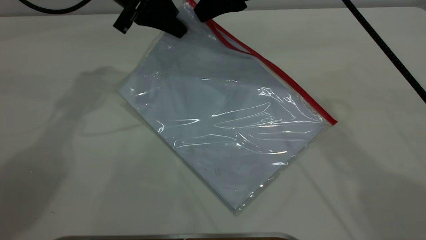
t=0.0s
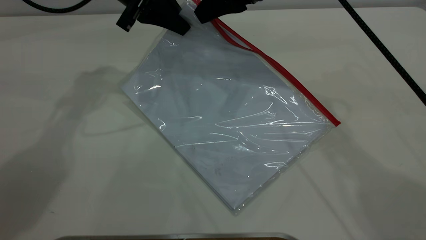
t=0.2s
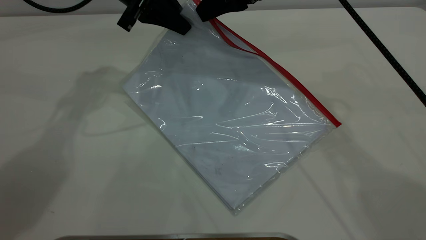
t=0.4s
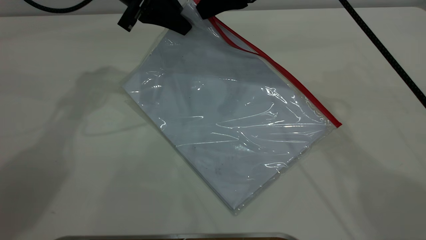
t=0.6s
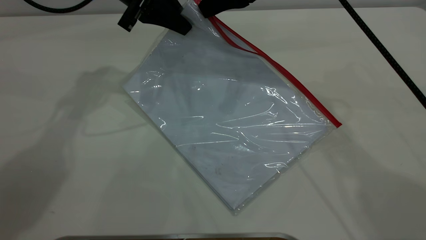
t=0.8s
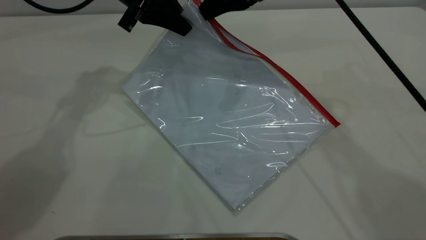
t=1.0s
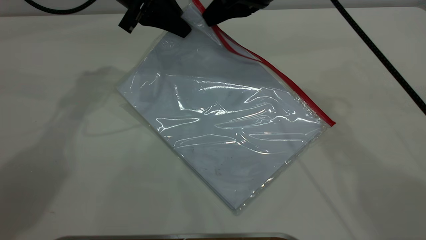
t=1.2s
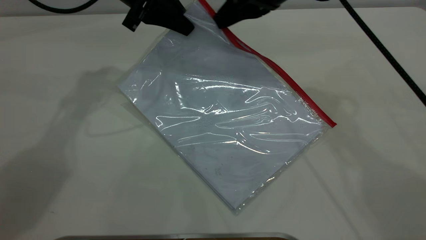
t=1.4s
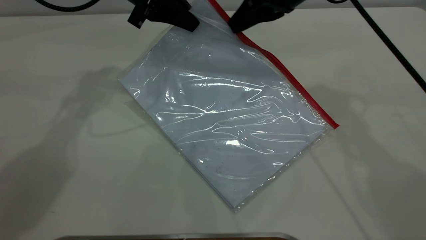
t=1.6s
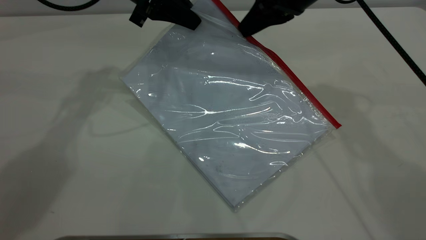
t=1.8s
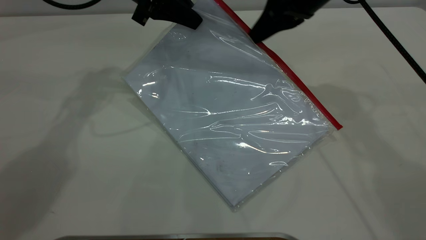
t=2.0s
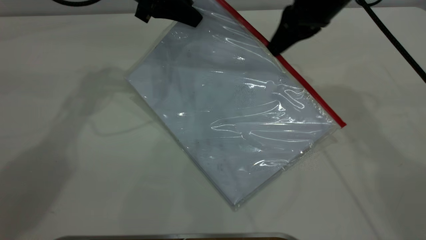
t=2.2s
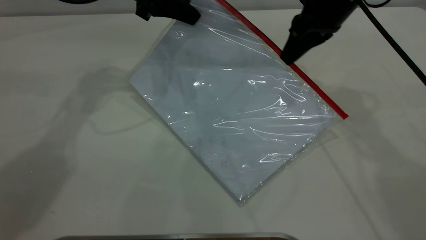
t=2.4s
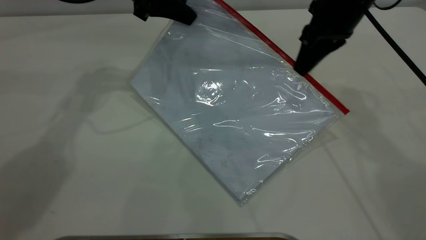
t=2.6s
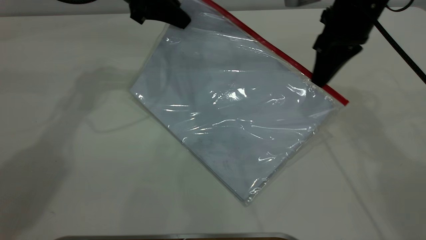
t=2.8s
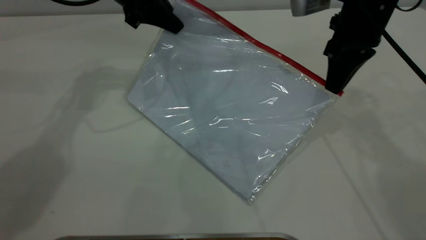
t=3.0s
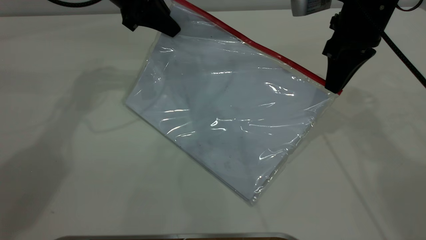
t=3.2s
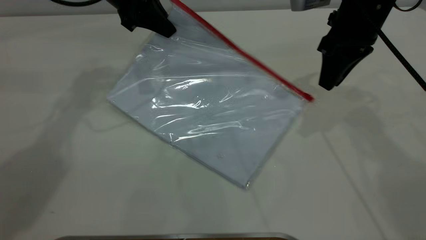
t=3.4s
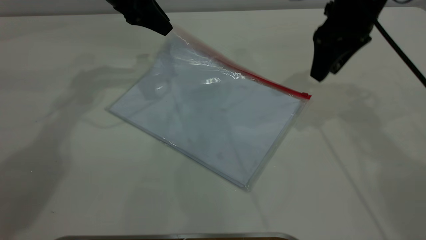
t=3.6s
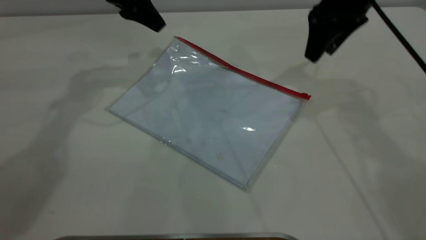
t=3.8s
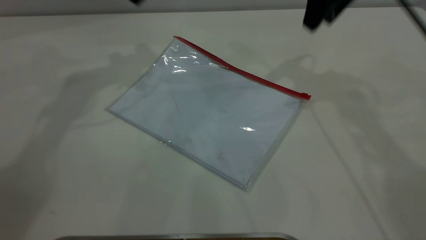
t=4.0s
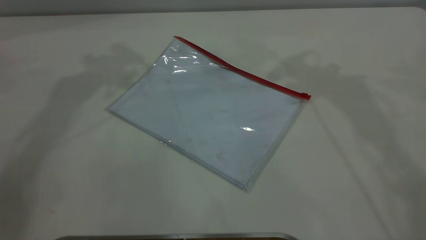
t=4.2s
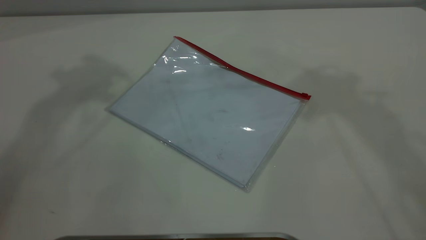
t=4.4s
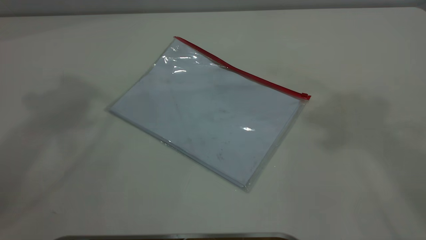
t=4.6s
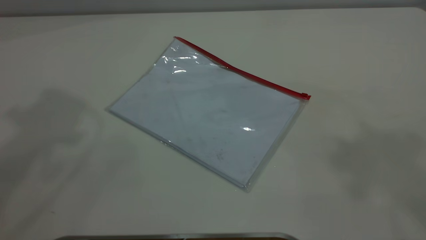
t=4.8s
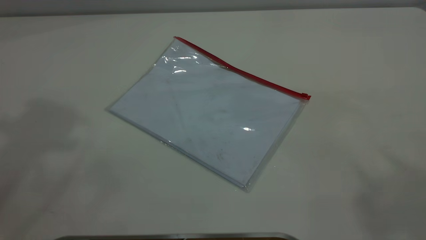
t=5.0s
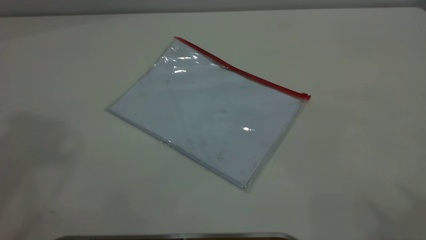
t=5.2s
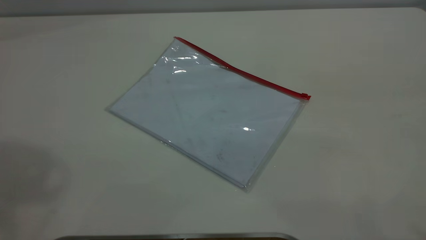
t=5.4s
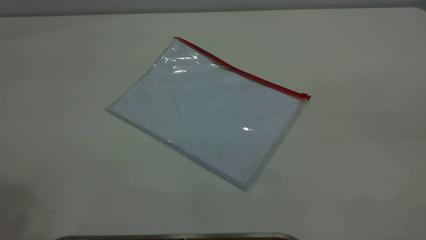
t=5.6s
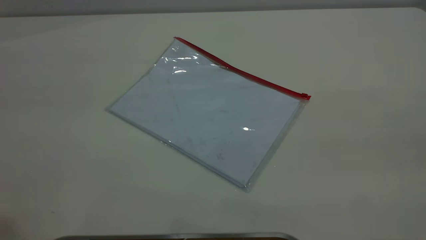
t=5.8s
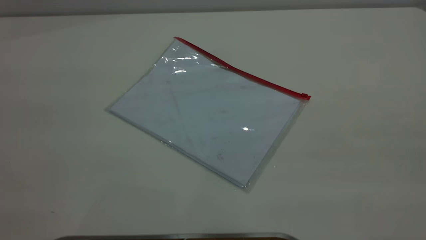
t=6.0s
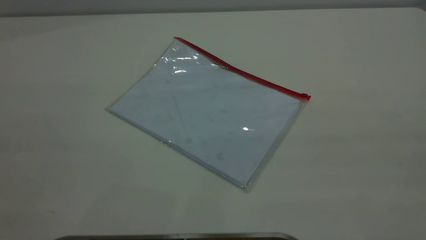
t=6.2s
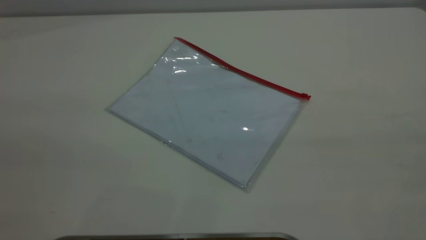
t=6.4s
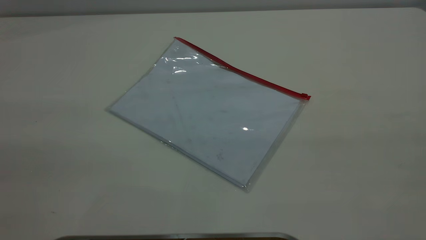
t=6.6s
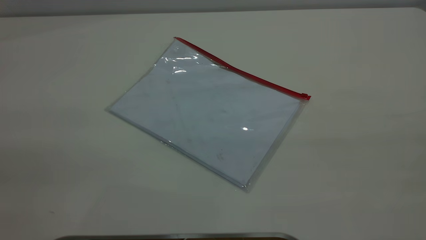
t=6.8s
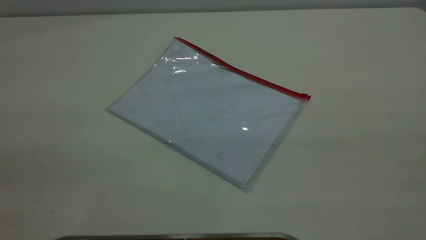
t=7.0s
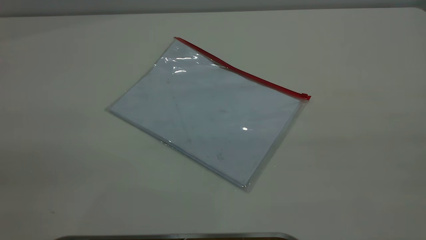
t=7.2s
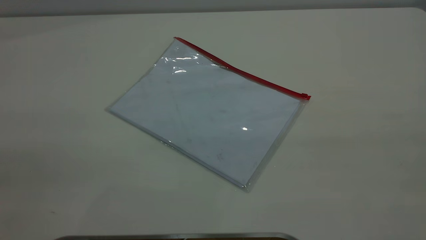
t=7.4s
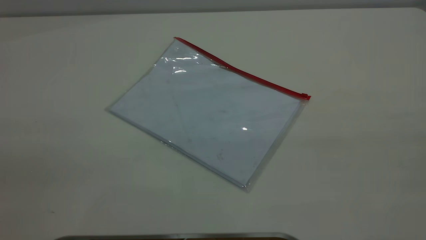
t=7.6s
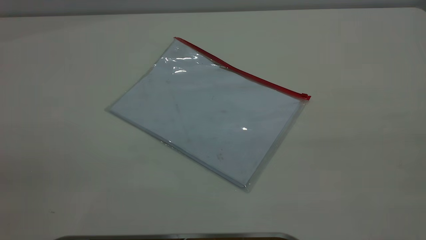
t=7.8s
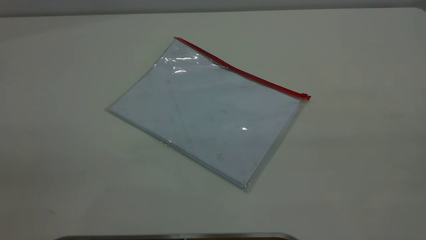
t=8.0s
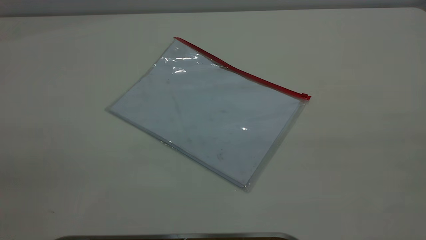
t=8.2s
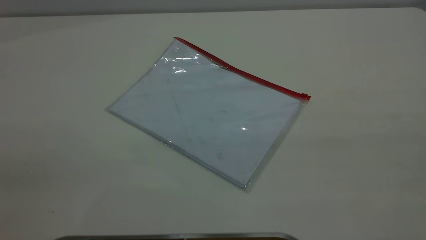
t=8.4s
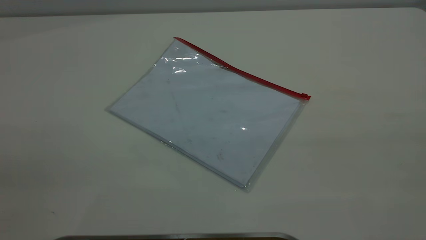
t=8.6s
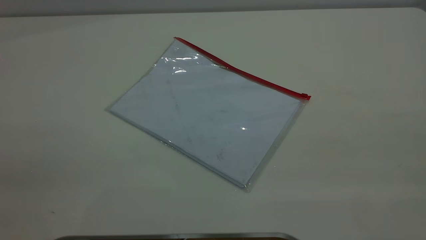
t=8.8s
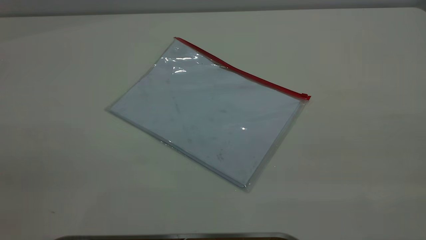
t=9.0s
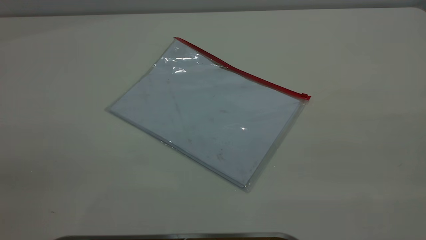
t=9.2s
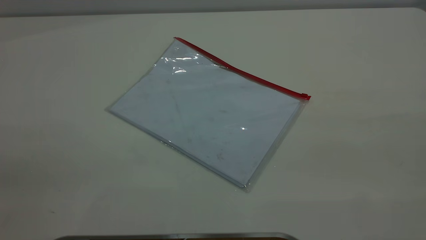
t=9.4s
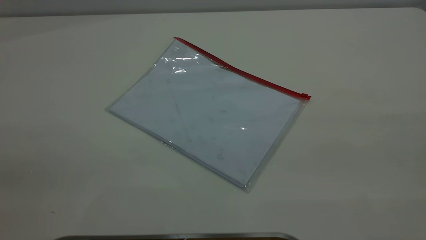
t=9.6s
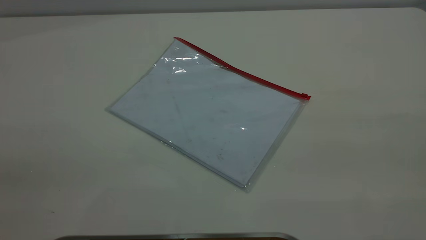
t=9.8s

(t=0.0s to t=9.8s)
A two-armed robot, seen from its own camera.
Step, t=0.0s - t=3.2s: Pulling up the zipper on the transparent plastic bag with the right gripper to close it.
t=0.0s - t=1.4s: The right gripper closes up.
t=1.4s - t=2.8s: The right gripper travels to the right by about 10 cm.
t=2.8s - t=4.2s: Both grippers move upward, some 20 cm. The left gripper opens up, while the right gripper opens.

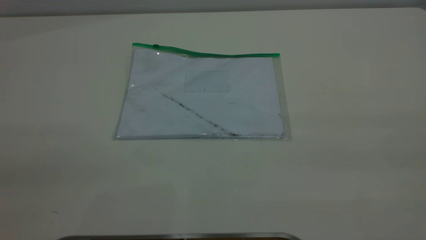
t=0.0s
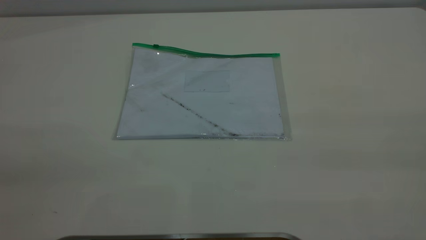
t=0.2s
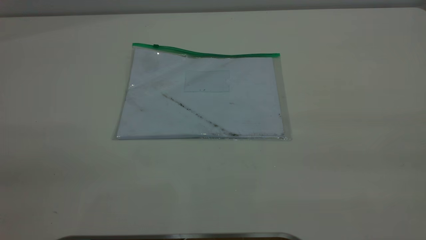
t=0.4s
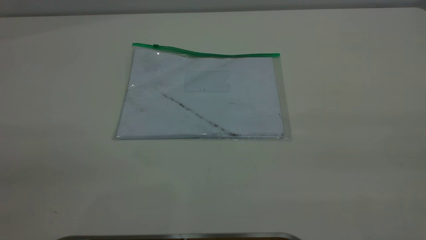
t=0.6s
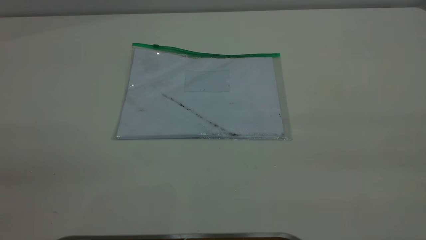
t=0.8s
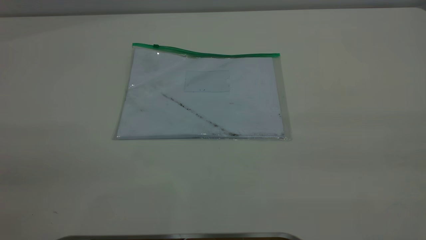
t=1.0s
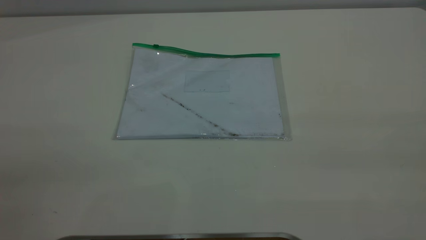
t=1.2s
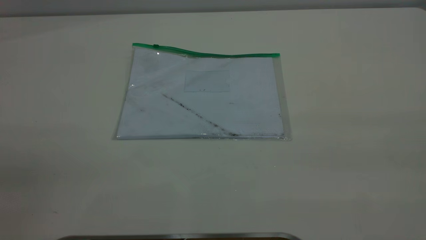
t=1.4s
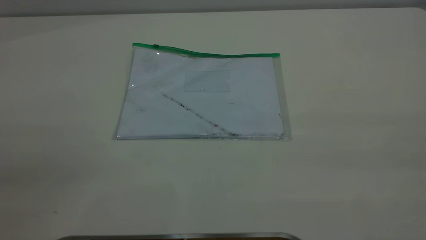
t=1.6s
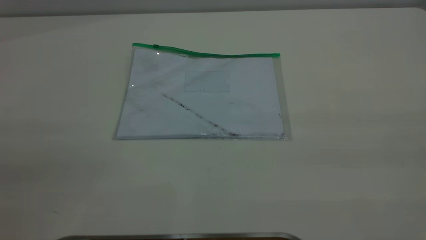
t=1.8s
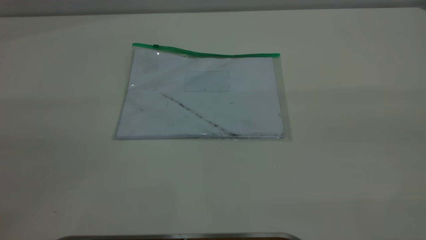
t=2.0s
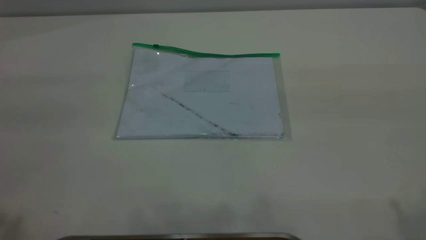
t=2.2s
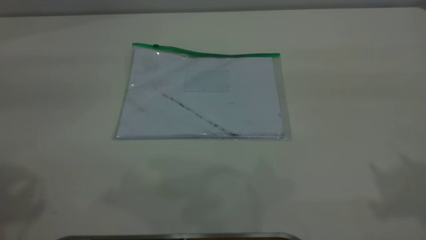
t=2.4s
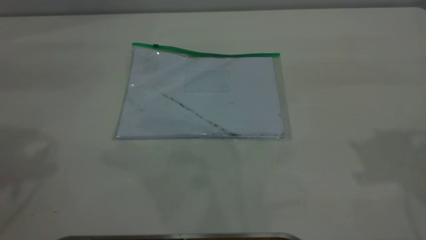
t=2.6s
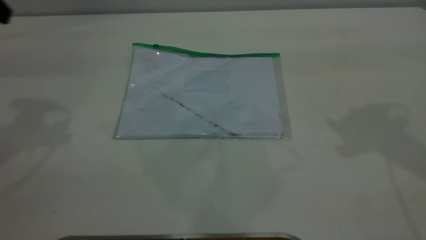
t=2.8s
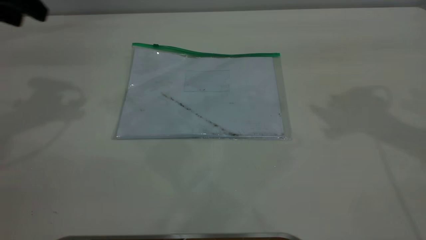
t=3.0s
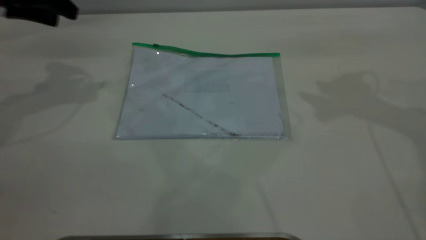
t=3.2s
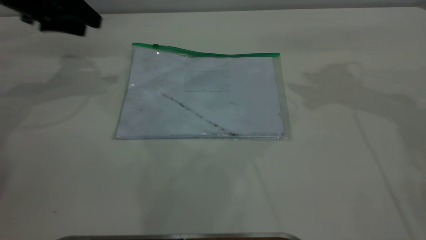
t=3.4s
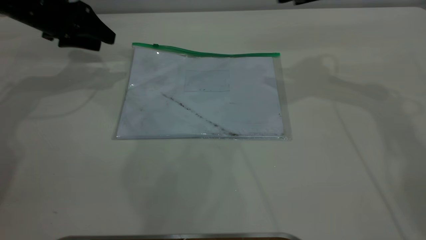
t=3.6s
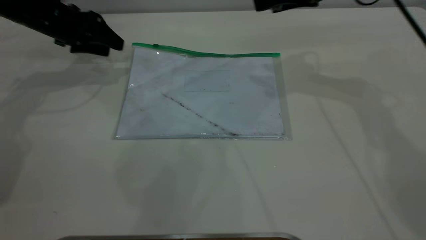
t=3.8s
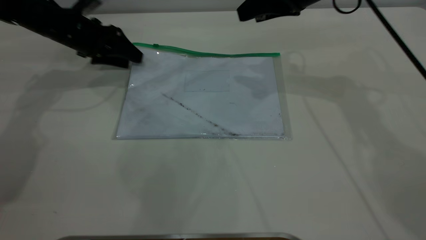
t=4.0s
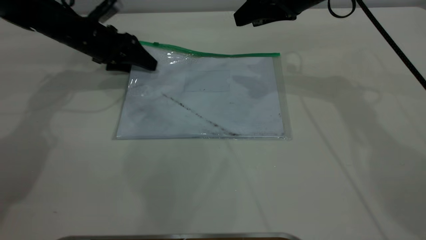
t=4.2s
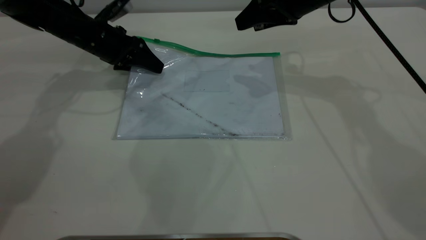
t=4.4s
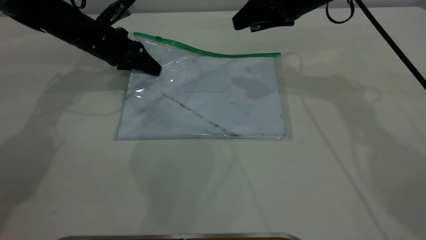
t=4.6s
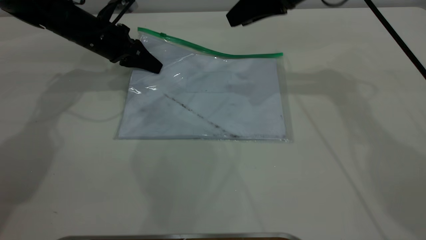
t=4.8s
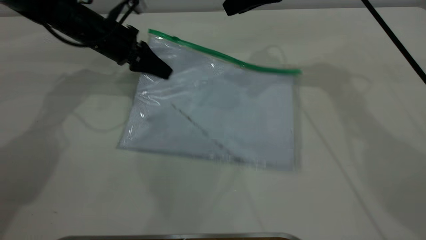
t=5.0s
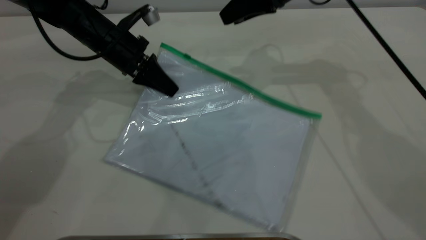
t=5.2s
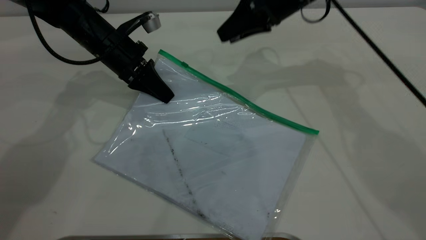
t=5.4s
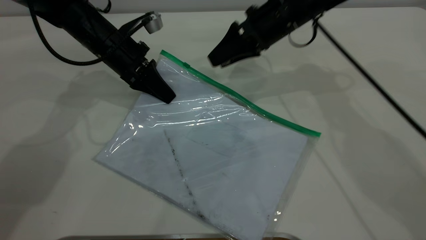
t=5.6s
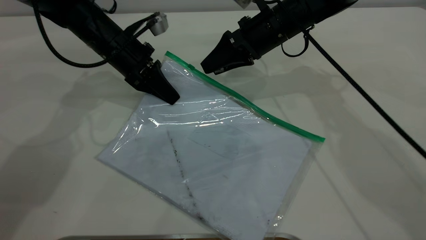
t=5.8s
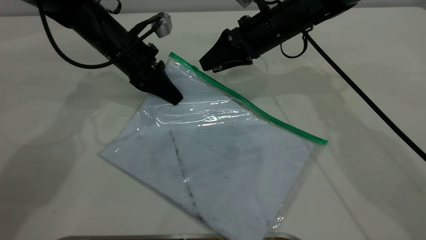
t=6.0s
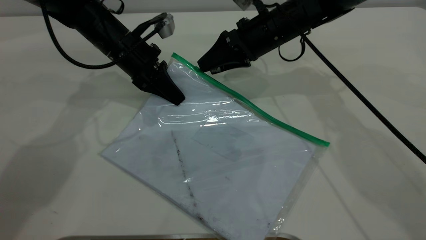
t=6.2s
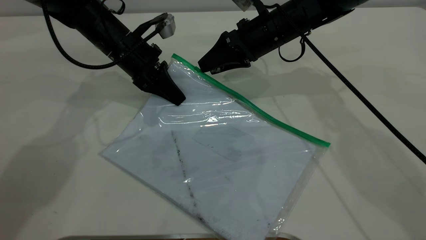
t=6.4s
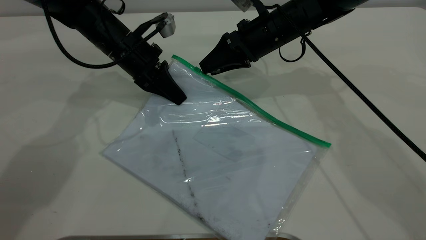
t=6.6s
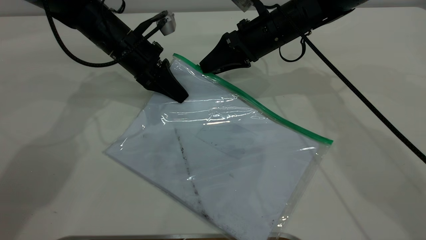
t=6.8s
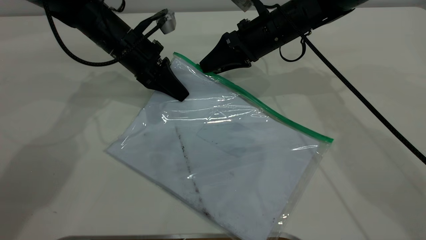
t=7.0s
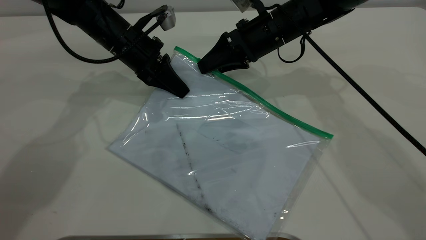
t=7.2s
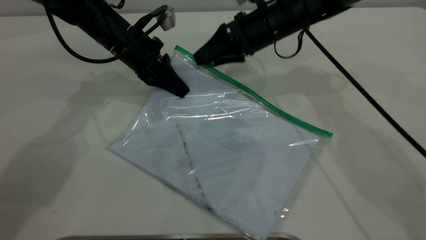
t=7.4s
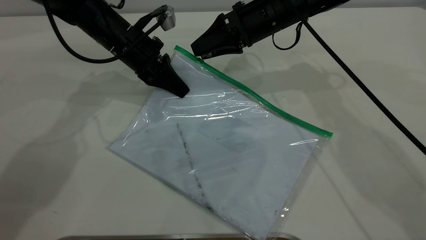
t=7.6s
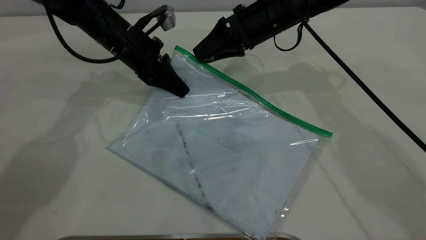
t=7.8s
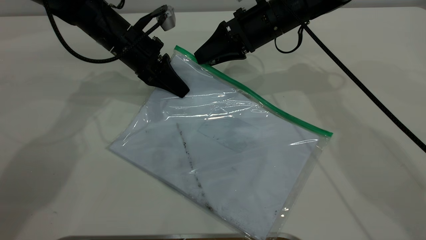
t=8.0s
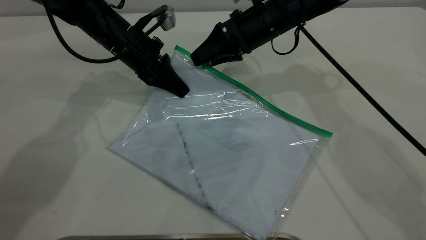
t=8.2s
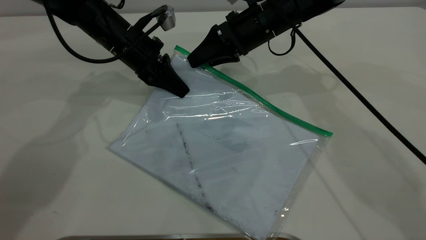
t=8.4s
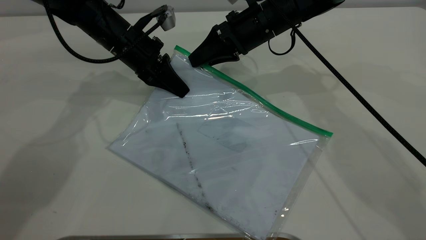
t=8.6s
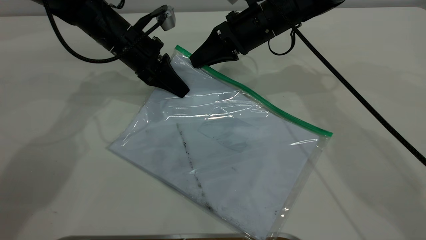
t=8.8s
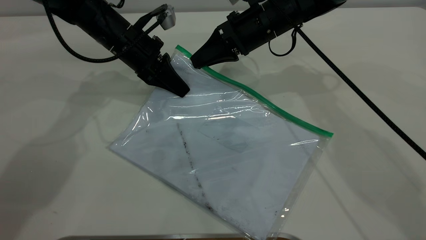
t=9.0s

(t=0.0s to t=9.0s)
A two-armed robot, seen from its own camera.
Step, t=0.0s - t=5.0s: Pick up the transparent plastic bag with the left gripper.
t=0.0s - t=1.6s: The two grippers keep their place.
t=1.6s - t=3.0s: The left gripper heads forward, covering some 40 cm.
t=3.0s - t=4.4s: The right gripper shifts roughly 20 cm to the left, forward and downward. The left gripper shifts about 25 cm downward, forward and to the right.
t=4.4s - t=6.0s: The right gripper moves downward and to the left, about 10 cm, while the left gripper travels to the right by approximately 5 cm, and closes.
t=6.0s - t=7.6s: There are only small adjustments of the grippers.
t=7.6s - t=9.0s: The right gripper closes.
